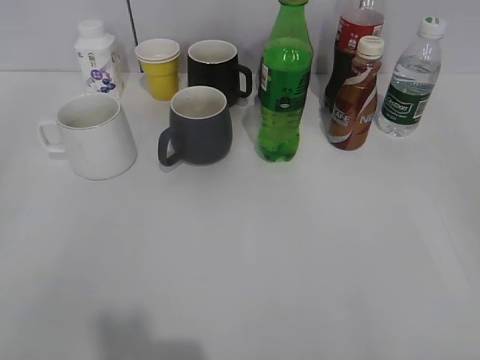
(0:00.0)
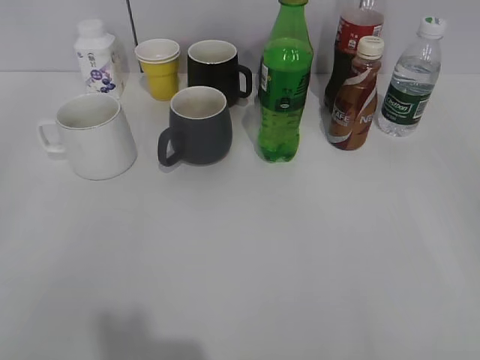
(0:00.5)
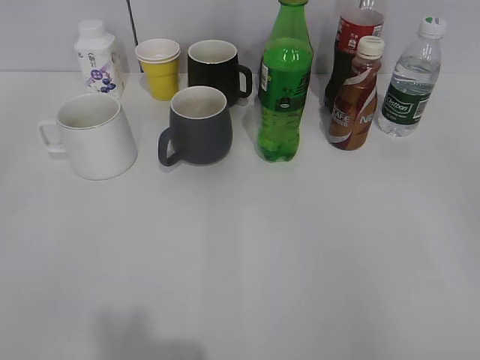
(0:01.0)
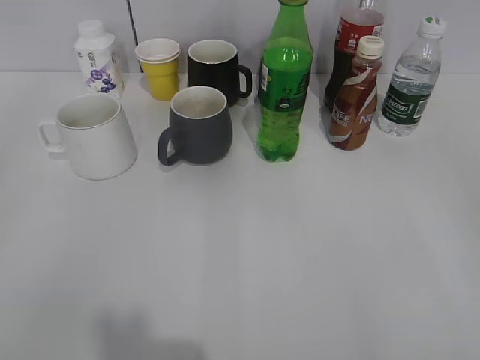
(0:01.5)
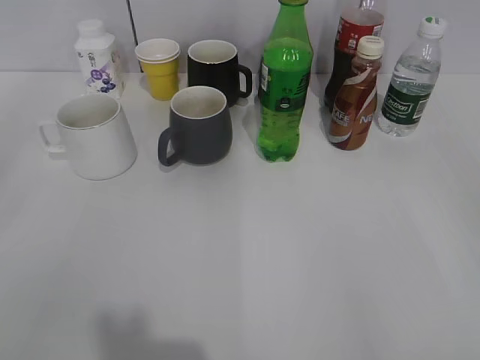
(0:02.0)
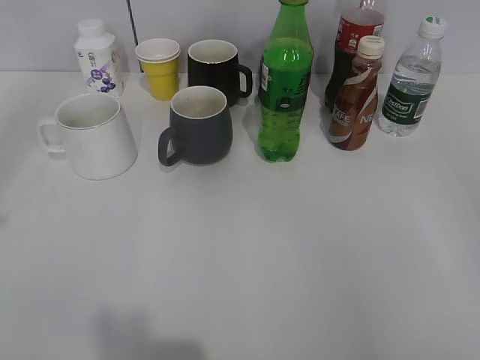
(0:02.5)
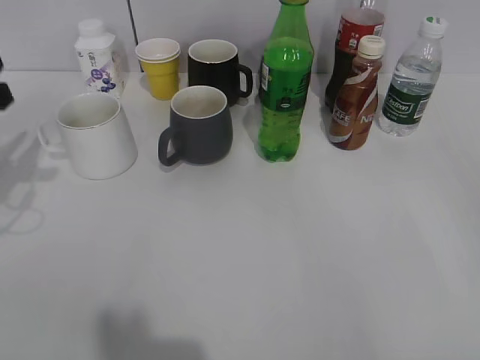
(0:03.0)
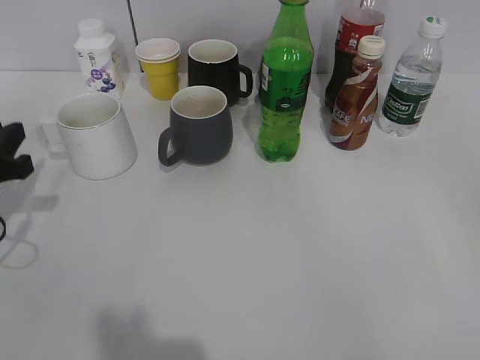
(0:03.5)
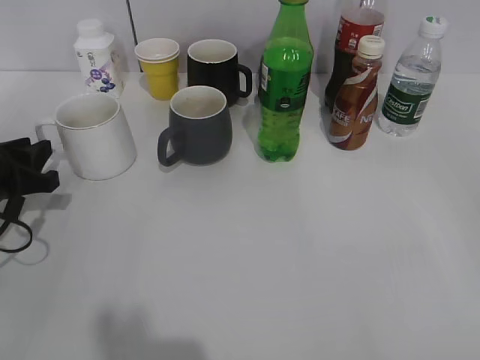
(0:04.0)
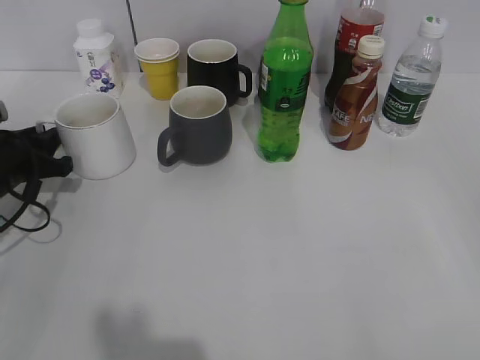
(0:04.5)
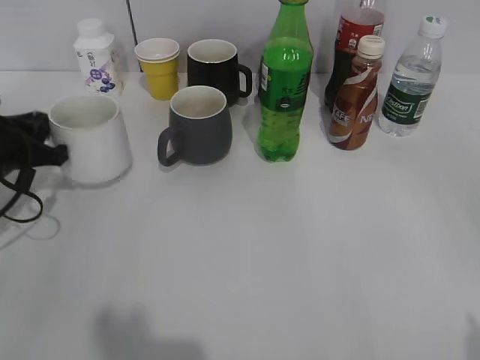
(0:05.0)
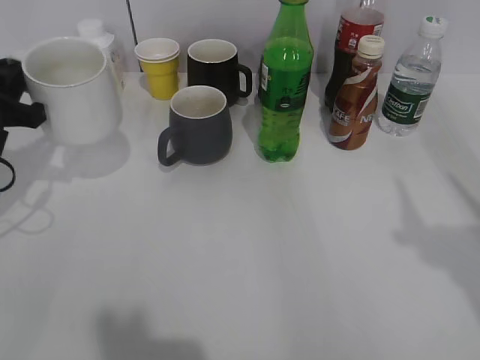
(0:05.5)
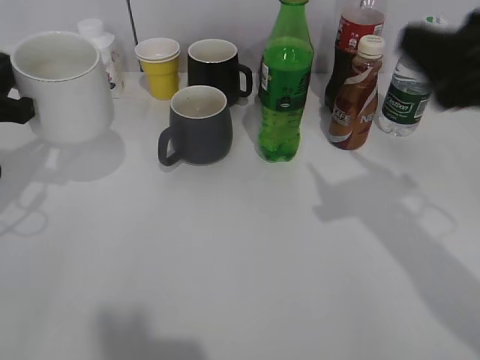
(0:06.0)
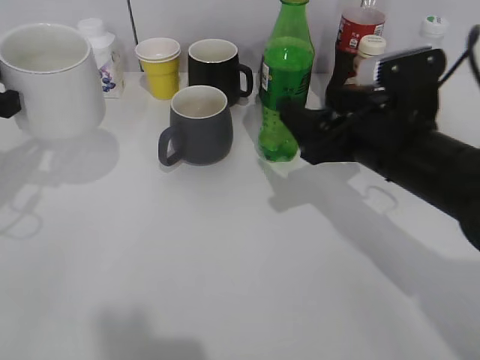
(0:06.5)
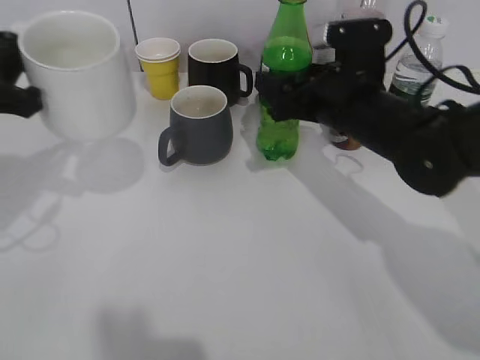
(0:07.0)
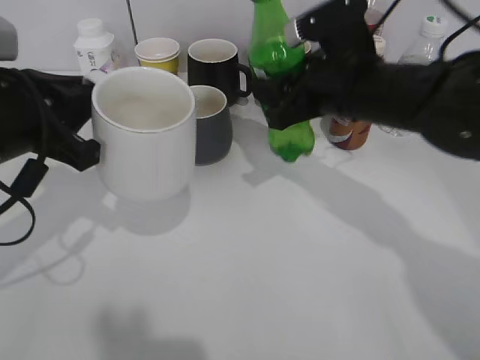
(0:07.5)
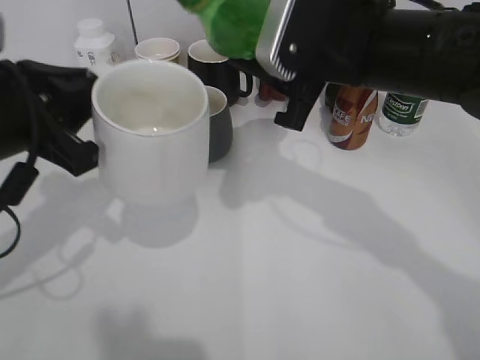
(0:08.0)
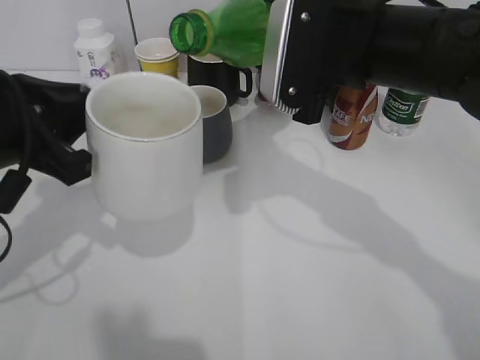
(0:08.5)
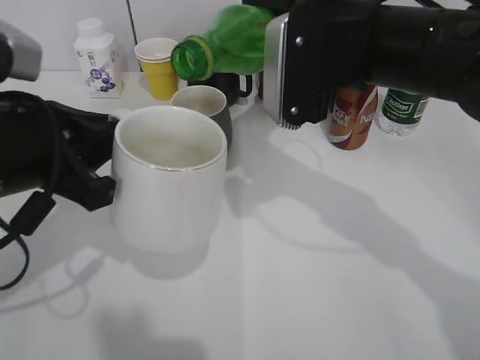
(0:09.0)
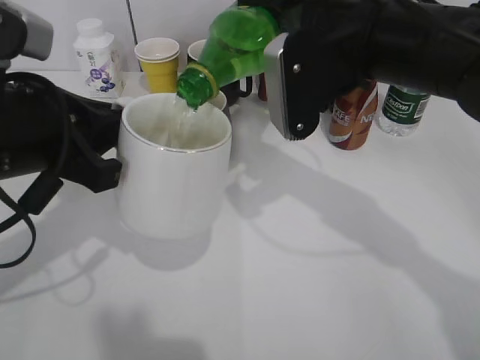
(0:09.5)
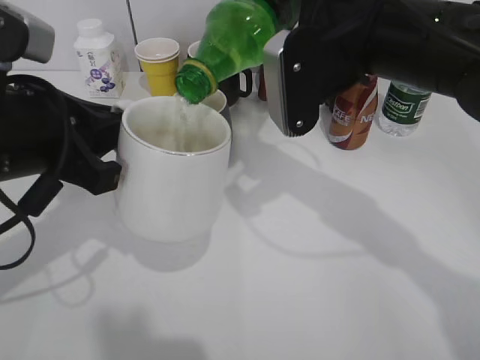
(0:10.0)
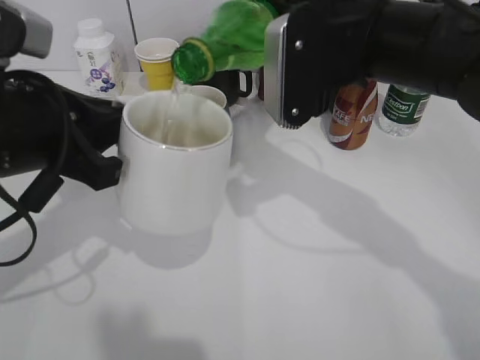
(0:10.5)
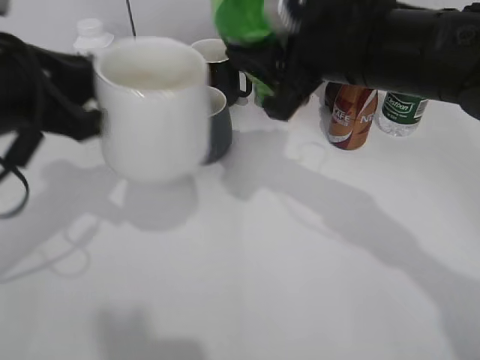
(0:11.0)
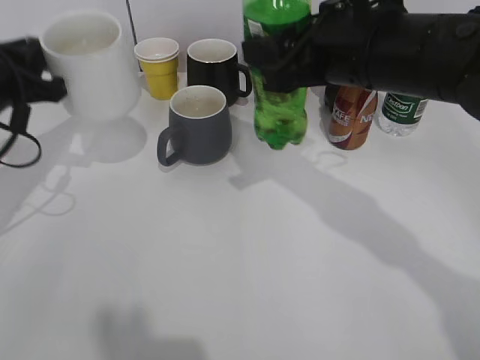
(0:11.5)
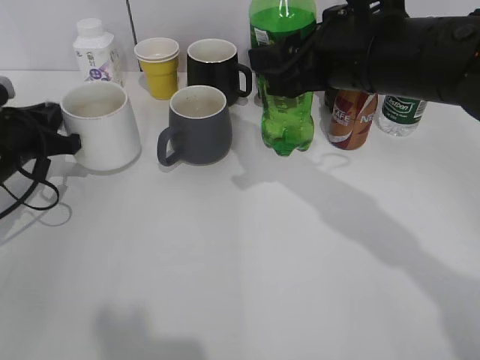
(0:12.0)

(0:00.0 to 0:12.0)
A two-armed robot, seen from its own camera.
Step, 0:02.0 - 0:04.5: Grasp the white cup with left gripper.
Step, 0:05.0 - 0:05.5: Lift the white cup with left gripper.
Step, 0:06.0 - 0:07.0: Grasp the bottle with sprite with right gripper.
Step, 0:07.5 - 0:10.5: Pour the sprite from bottle to cup with right gripper.
0:02.0 - 0:04.0: The left gripper is displaced forward and downward by some 30 cm.
0:04.0 - 0:06.0: The left gripper goes about 10 cm upward, and closes up. The right gripper is displaced forward and to the left by some 20 cm.
0:06.0 - 0:08.0: The right gripper travels to the left and forward by approximately 15 cm, and closes, while the left gripper shifts approximately 10 cm to the right and backward.
0:10.0 - 0:12.0: The left gripper is displaced forward, downward and to the left by some 20 cm.

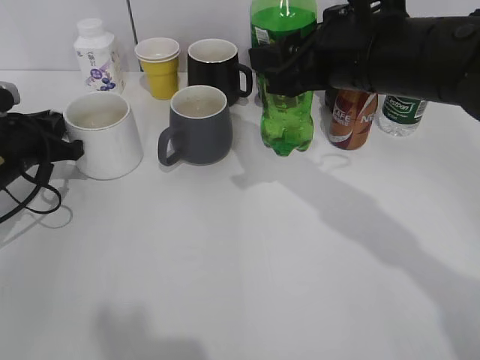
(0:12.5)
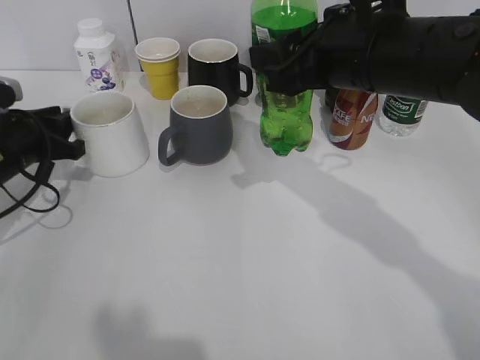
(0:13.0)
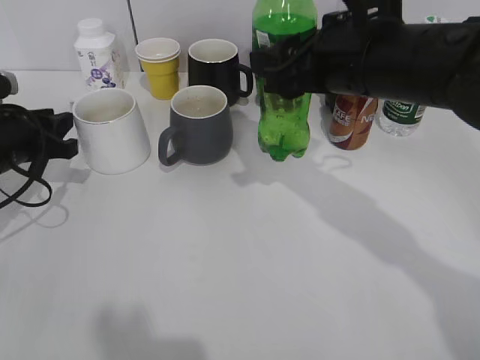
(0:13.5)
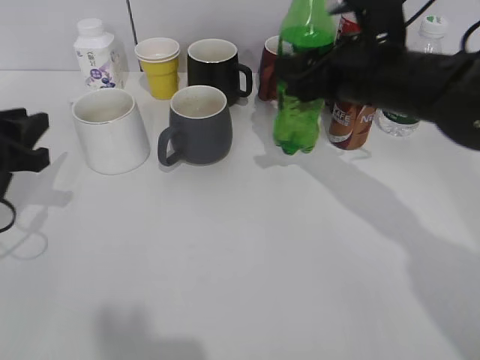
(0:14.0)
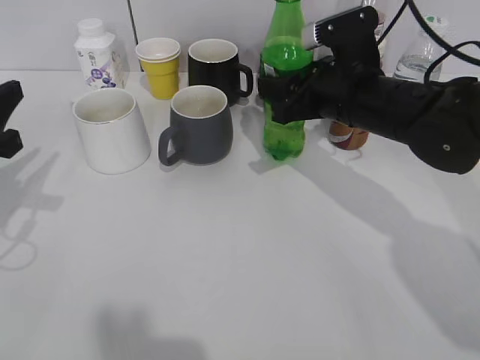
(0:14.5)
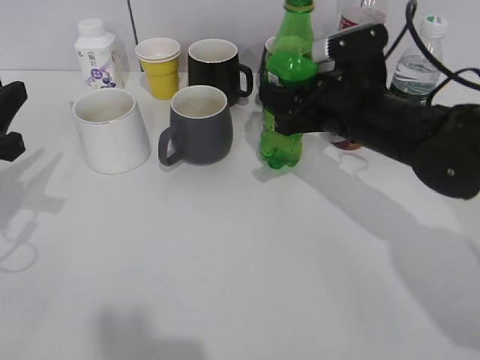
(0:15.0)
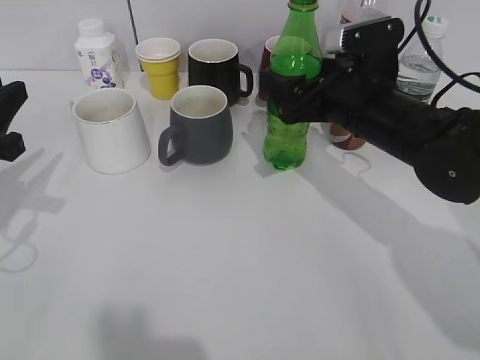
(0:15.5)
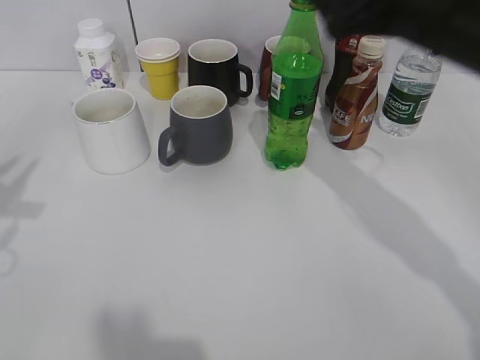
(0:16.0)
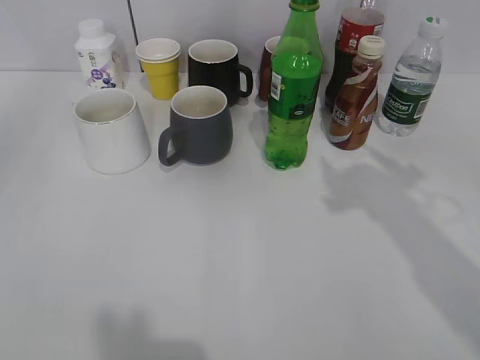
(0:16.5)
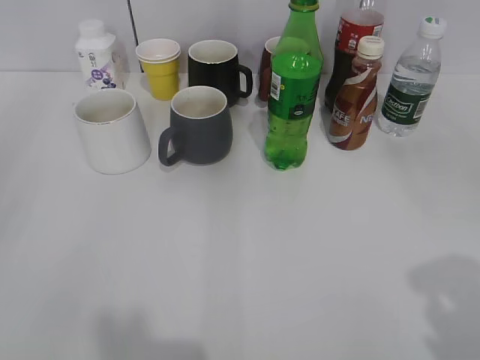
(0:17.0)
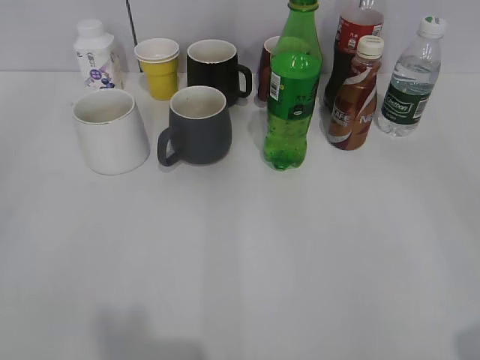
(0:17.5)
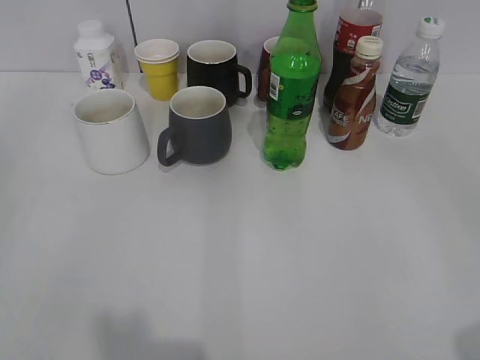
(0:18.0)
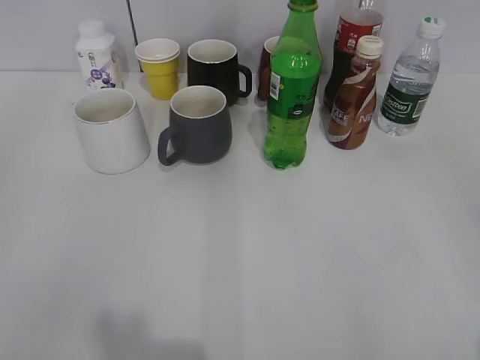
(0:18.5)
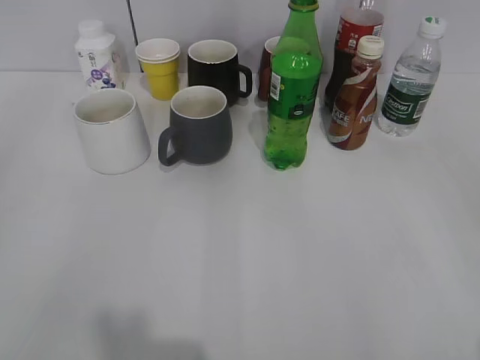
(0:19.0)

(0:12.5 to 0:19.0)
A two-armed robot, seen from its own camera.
Step, 0:13.5 - 0:15.5: Place the sprite bottle on the table with right gripper.
0:12.5 - 0:14.5: The left gripper shifts about 10 cm backward and upward; the right gripper is displaced downward and forward by about 10 cm.
0:14.5 - 0:17.0: The left gripper moves backward, some 20 cm, and opens; the right gripper goes some 35 cm backward, to the right and upward, and opens its fingers.

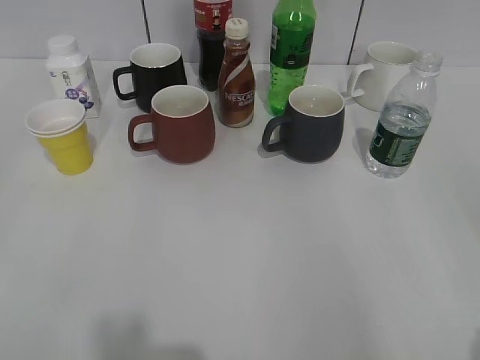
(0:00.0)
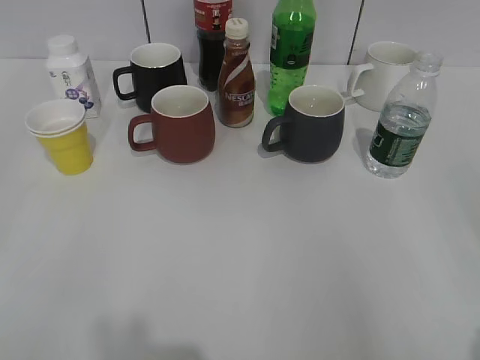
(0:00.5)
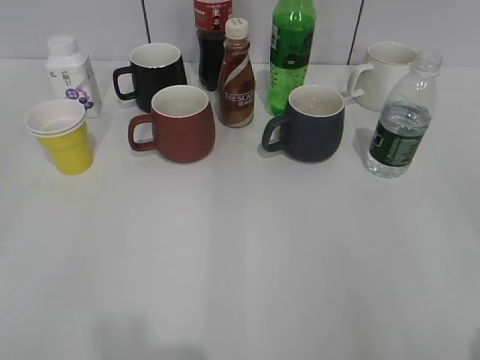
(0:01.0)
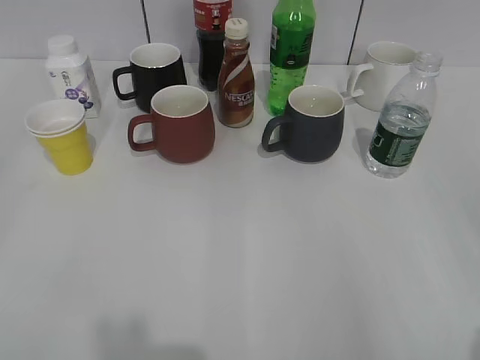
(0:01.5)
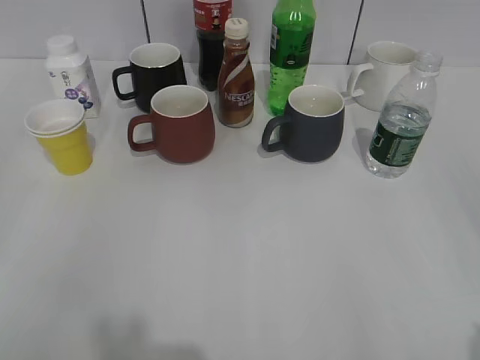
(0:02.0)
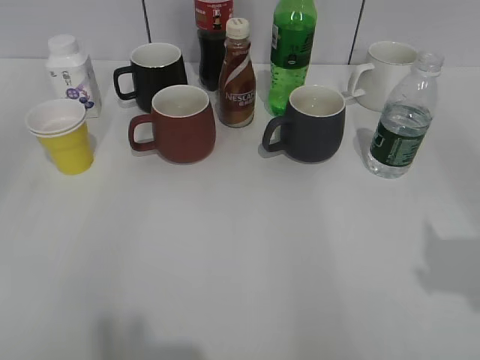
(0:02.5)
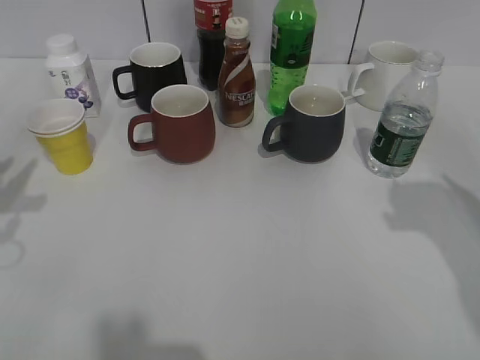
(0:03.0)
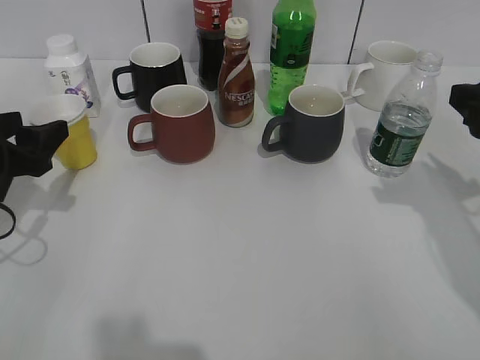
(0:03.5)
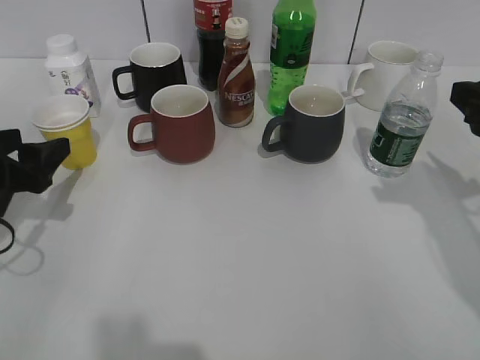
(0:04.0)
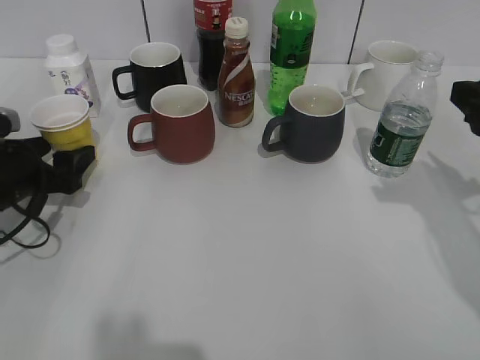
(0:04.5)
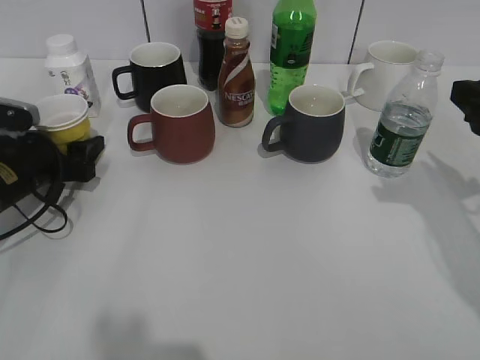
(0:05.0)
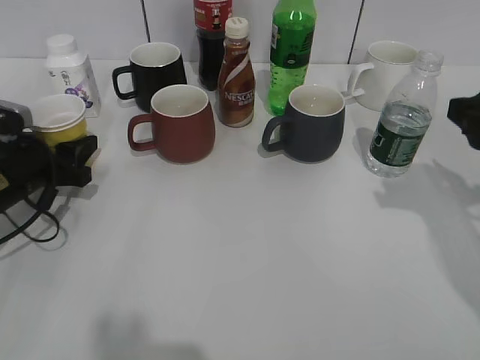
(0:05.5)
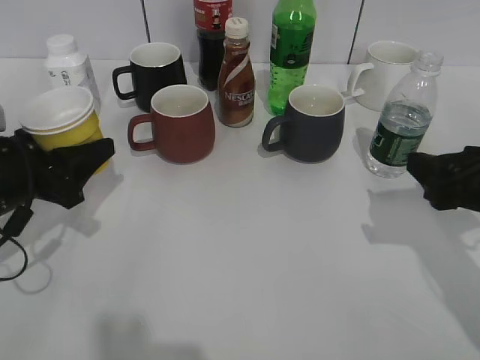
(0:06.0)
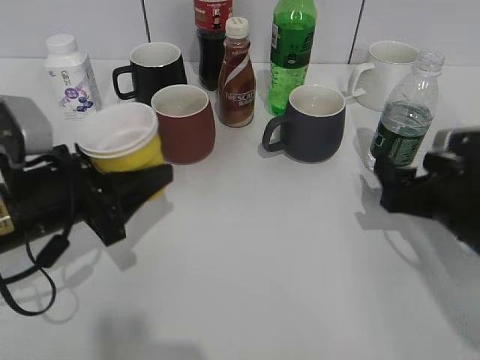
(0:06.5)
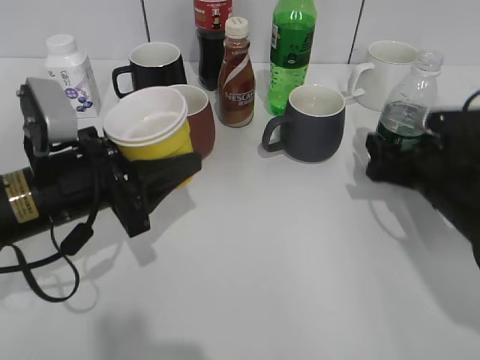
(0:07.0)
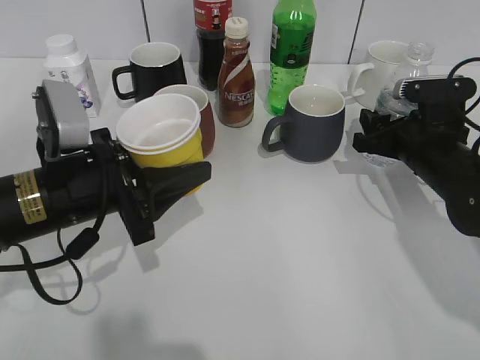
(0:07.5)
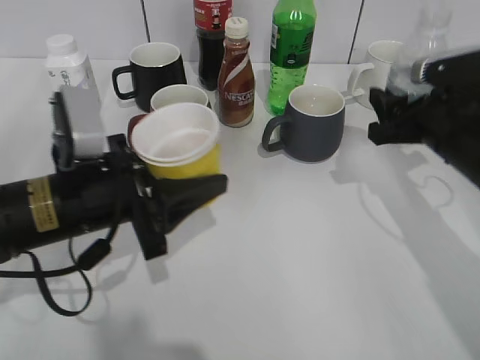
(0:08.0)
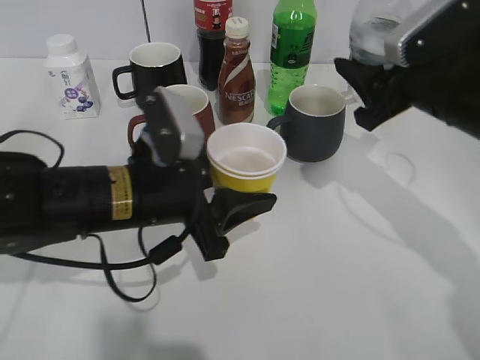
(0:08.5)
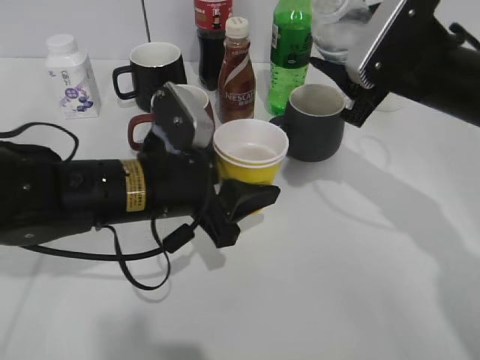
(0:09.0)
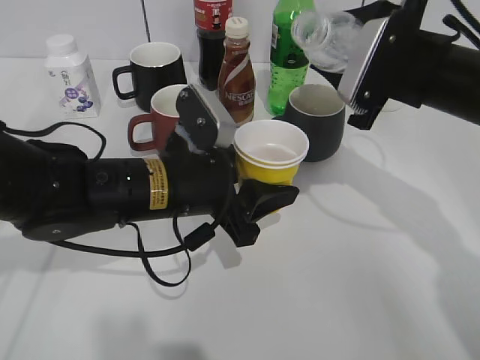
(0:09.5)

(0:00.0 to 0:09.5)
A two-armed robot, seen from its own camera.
Step, 0:02.0 - 0:05.0: Grasp the yellow paper cup with left gripper.
Step, 0:05.5 - 0:07.0: Grasp the bottle with water with right gripper.
0:02.0 - 0:04.0: The left gripper moves forward and downward, about 30 cm, and opens; the right gripper shifts roughly 25 cm forward.
0:04.0 - 0:05.5: The left gripper goes about 10 cm forward and downward, and closes.
0:05.5 - 0:07.5: The right gripper heads downward and forward, covering some 15 cm, and closes; the left gripper shifts about 15 cm to the right, backward and upward.
0:07.5 - 0:09.5: The left gripper travels to the right by about 10 cm. The right gripper shifts roughly 15 cm upward and to the left.
